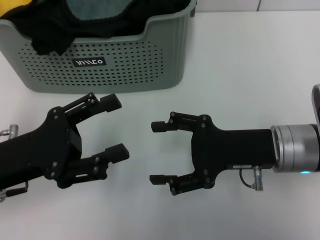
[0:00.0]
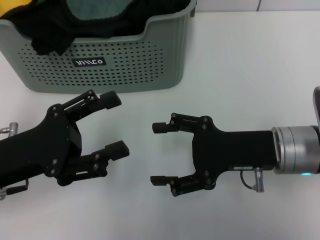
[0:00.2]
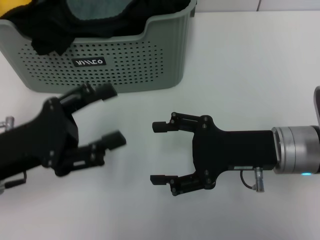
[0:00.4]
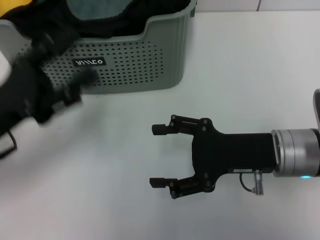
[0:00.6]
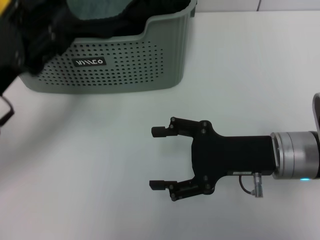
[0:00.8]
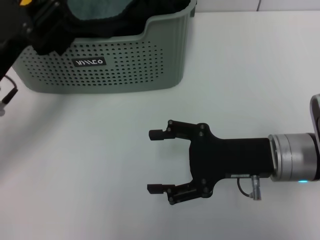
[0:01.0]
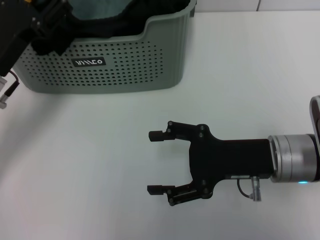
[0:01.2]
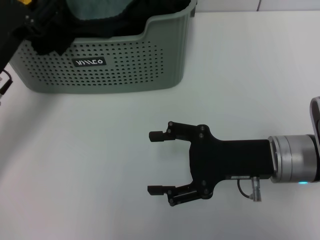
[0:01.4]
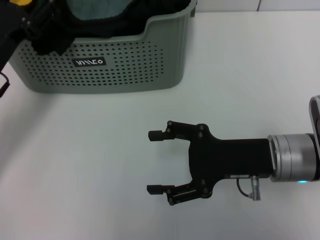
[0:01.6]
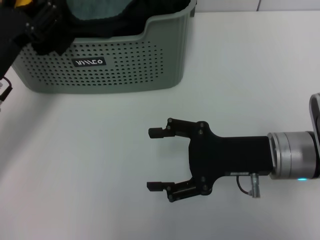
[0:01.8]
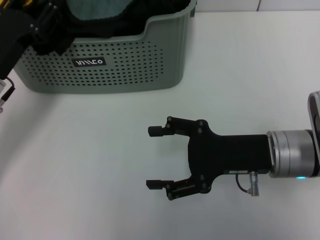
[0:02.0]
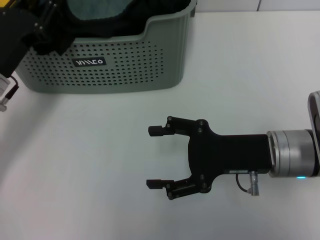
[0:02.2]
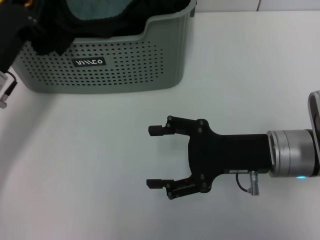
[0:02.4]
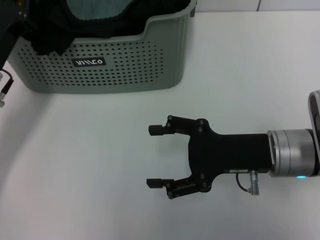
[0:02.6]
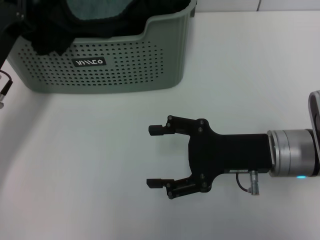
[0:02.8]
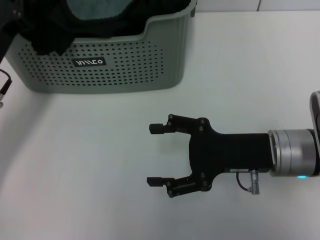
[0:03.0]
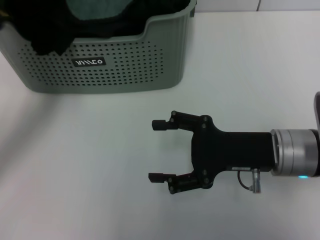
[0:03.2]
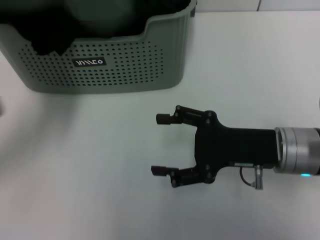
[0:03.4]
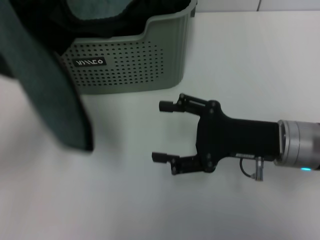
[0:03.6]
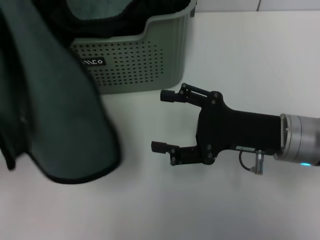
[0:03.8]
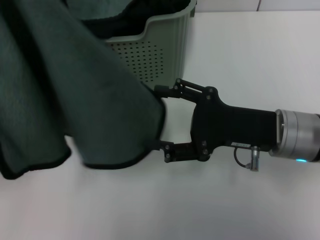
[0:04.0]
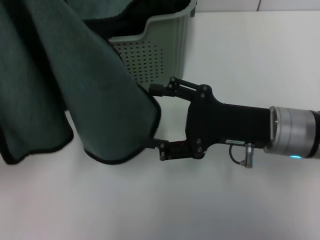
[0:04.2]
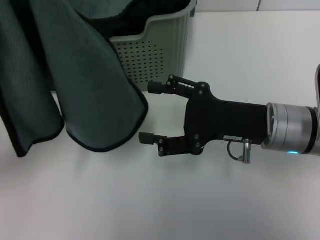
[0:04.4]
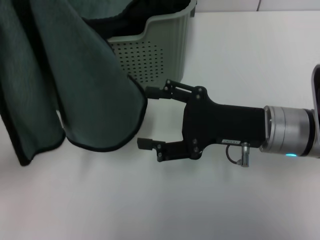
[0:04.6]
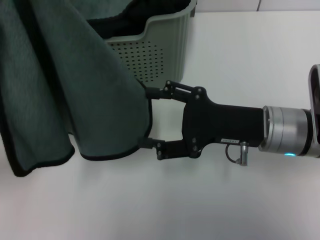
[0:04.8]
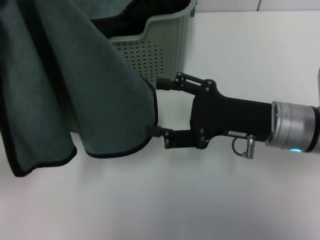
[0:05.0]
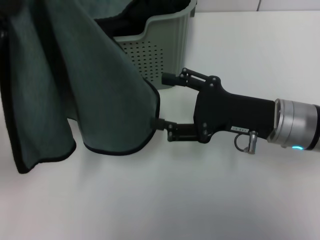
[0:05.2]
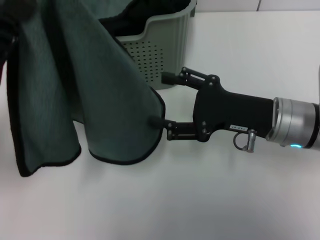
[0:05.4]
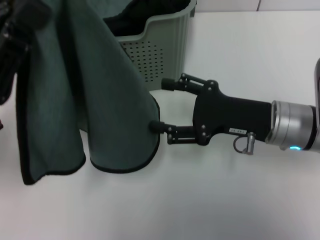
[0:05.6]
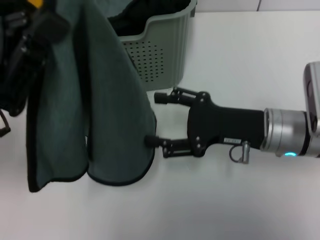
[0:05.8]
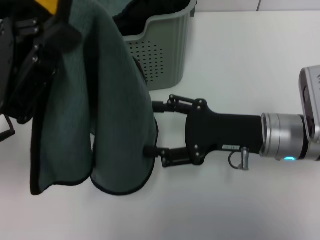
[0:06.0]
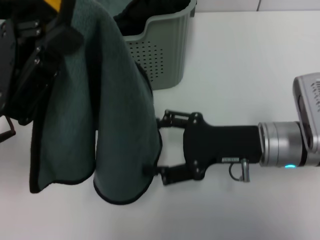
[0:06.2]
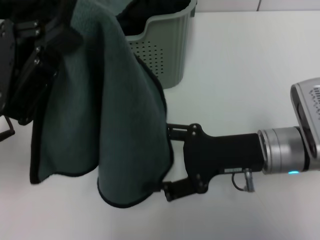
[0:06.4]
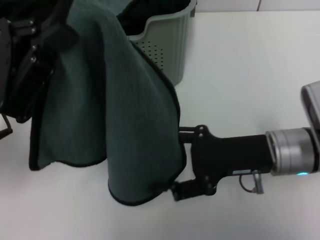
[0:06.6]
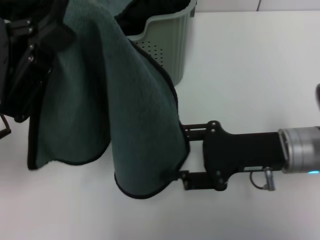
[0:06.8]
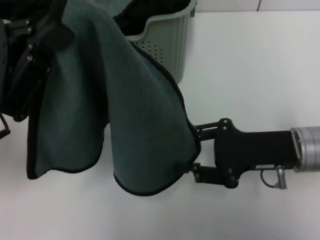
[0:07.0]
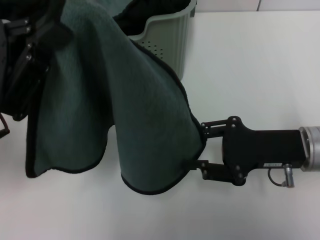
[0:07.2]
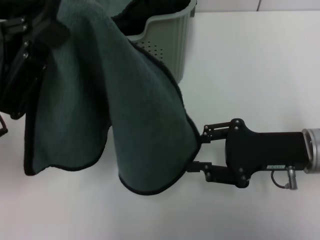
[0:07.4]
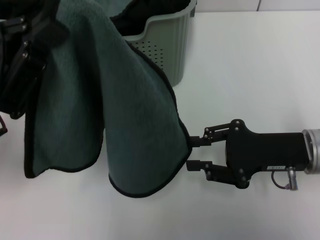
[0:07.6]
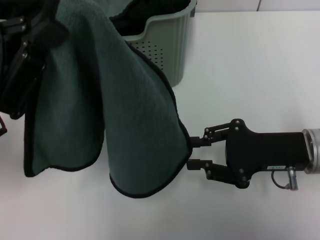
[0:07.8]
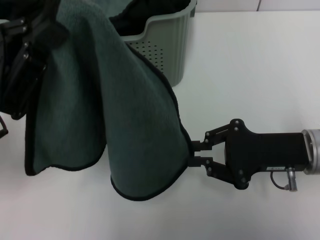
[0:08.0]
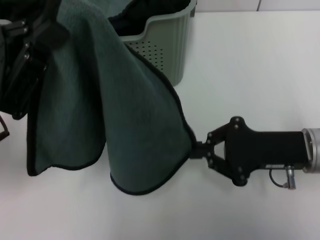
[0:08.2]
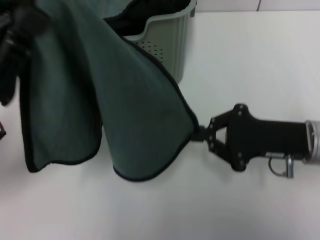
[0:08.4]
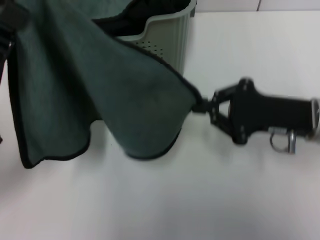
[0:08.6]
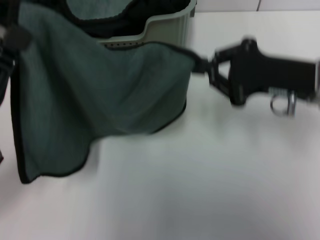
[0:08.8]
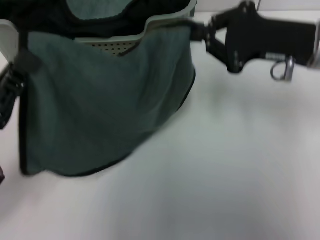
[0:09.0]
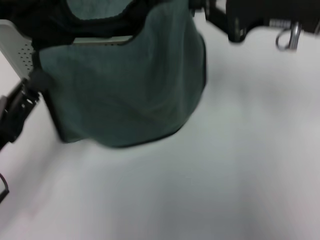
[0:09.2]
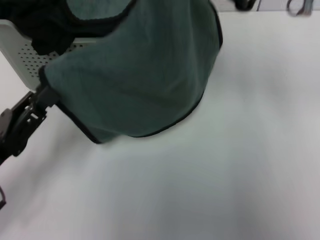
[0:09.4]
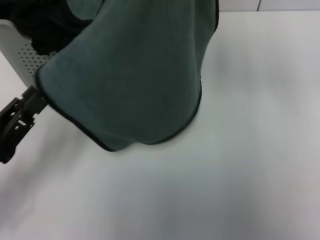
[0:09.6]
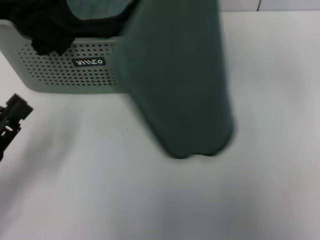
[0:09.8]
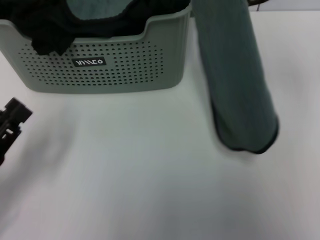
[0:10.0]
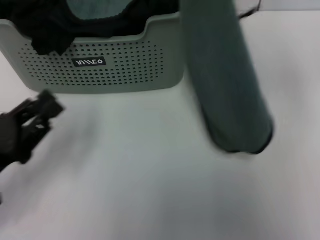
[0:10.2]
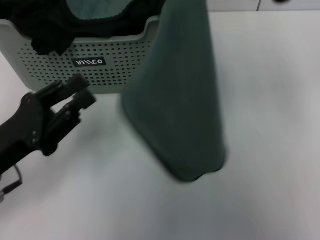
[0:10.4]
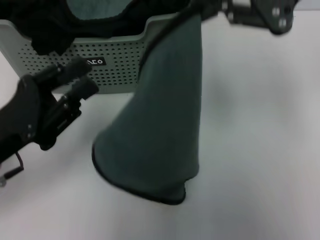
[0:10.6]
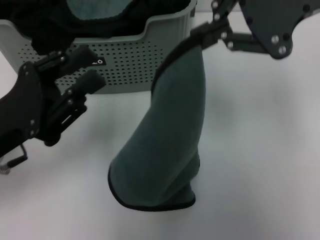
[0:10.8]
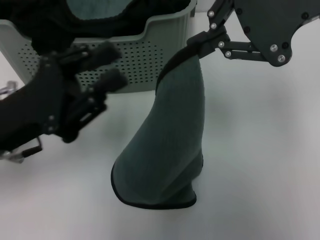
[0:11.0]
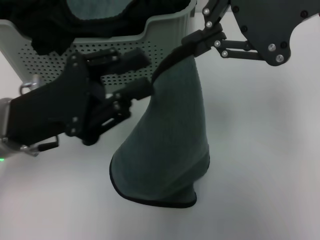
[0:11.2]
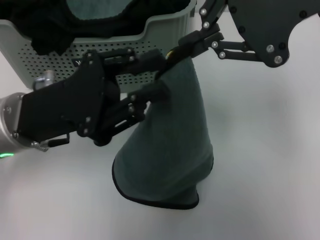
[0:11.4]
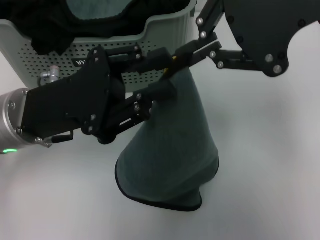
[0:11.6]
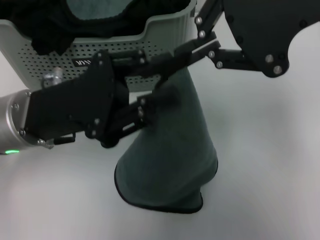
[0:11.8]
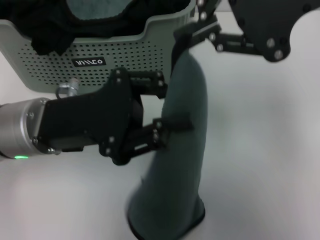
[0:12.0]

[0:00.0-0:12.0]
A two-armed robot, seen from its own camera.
Task of the whole recording: pick up the towel from the storage box and lay it flat on the table.
Step, 0:00.0 to 0:02.8: Pick up a towel with the left gripper.
Step, 0:03.0 to 0:08.4: Spread the towel flat with the left gripper.
0:00.0 to 0:01.6: The left gripper heads forward, covering about 10 cm.
0:01.6 to 0:03.0: The left gripper closes up.
0:03.0 to 0:04.4: The left gripper shifts about 10 cm backward and upward.
0:06.0 to 0:07.6: The right gripper moves to the right, approximately 5 cm, and closes up.
0:07.6 to 0:09.0: The right gripper is displaced upward and forward by about 10 cm, and closes up. The left gripper moves downward, approximately 5 cm.
0:09.0 to 0:10.4: The right gripper shifts some 15 cm upward.
0:10.4 to 0:12.0: The right gripper ends up some 5 cm from where it was. Meanwhile the left gripper shifts some 10 cm to the right, upward and forward.

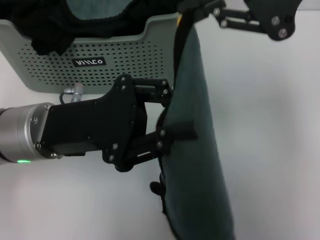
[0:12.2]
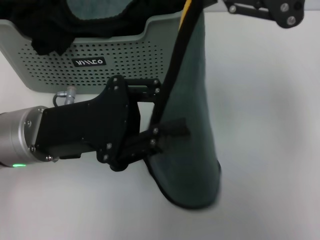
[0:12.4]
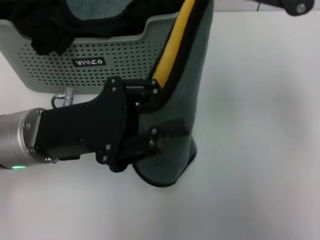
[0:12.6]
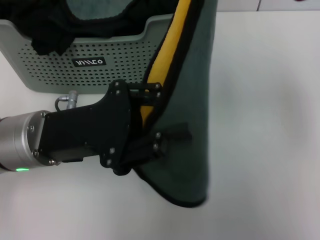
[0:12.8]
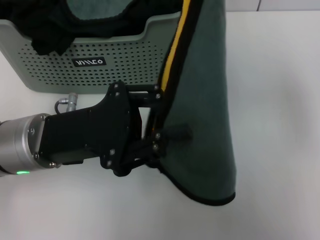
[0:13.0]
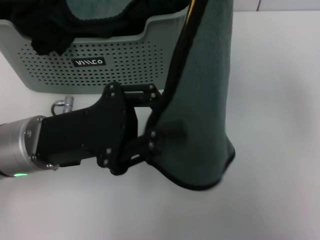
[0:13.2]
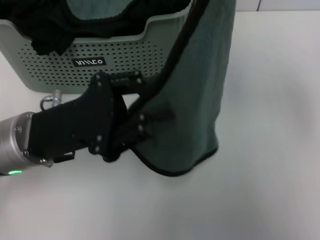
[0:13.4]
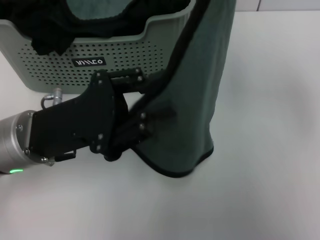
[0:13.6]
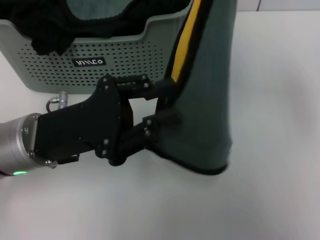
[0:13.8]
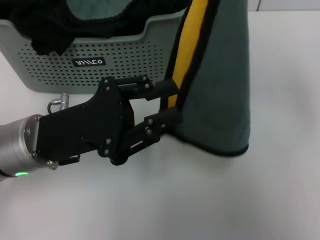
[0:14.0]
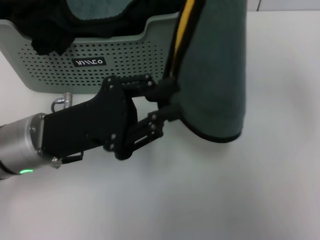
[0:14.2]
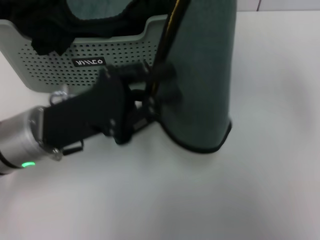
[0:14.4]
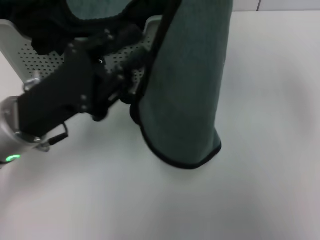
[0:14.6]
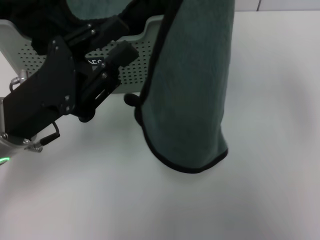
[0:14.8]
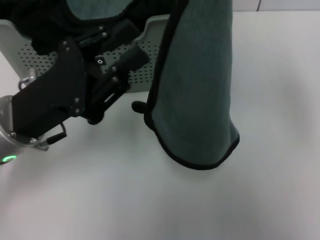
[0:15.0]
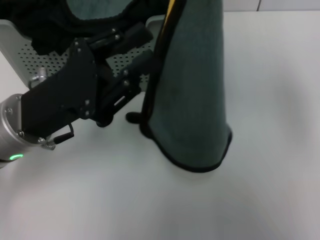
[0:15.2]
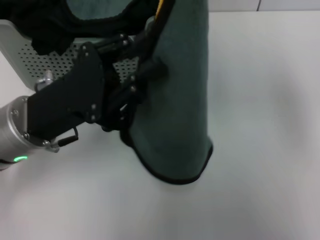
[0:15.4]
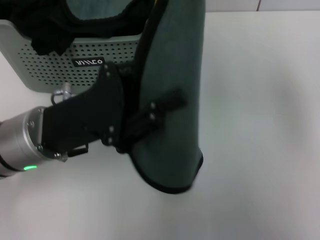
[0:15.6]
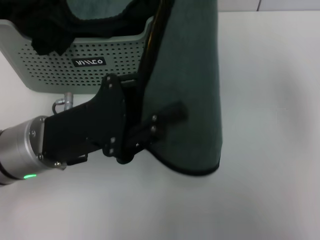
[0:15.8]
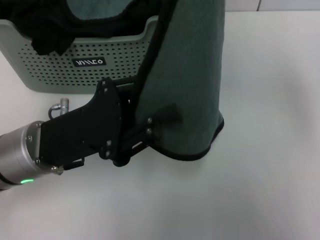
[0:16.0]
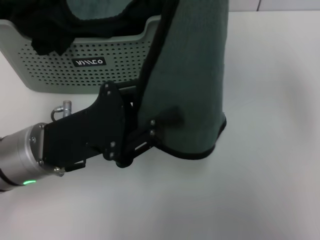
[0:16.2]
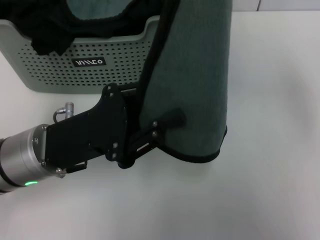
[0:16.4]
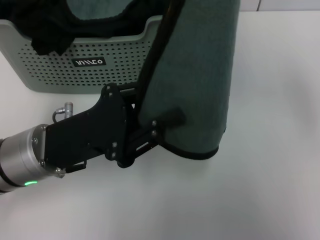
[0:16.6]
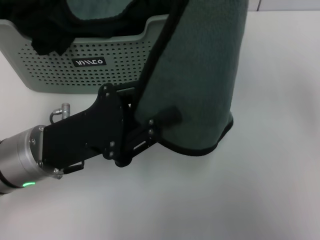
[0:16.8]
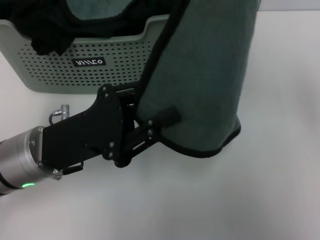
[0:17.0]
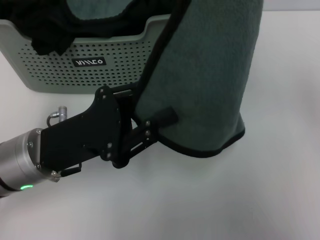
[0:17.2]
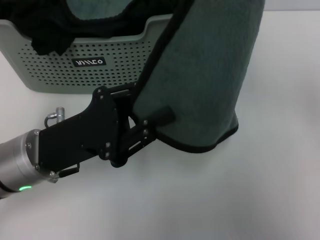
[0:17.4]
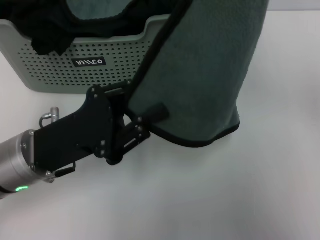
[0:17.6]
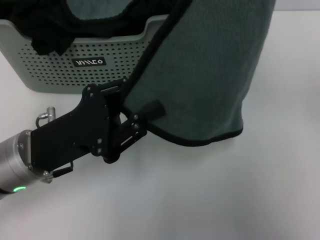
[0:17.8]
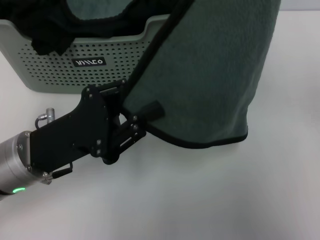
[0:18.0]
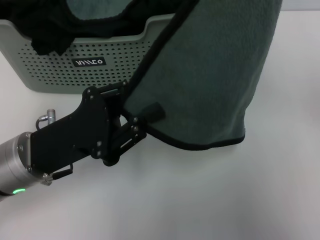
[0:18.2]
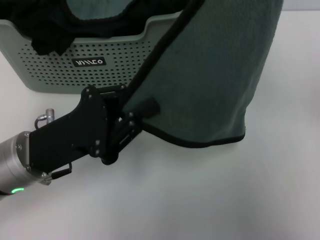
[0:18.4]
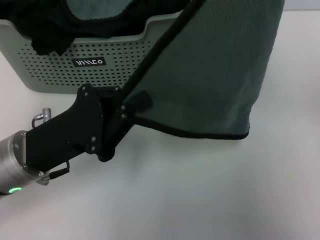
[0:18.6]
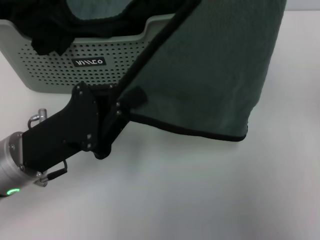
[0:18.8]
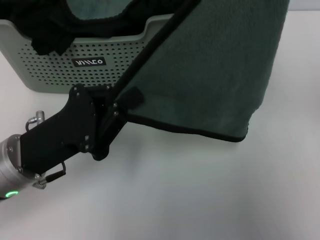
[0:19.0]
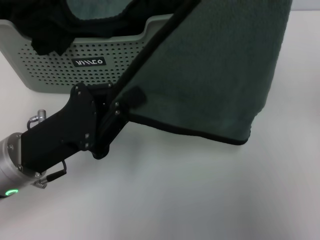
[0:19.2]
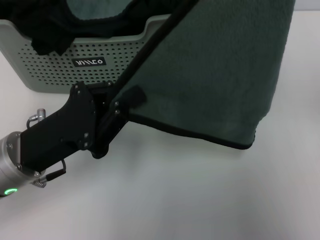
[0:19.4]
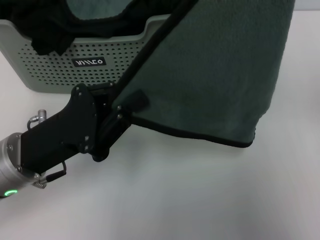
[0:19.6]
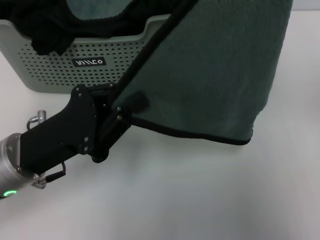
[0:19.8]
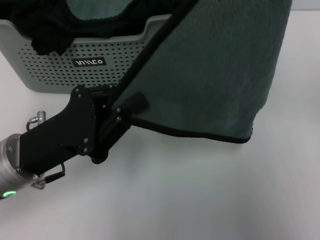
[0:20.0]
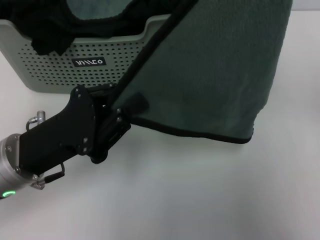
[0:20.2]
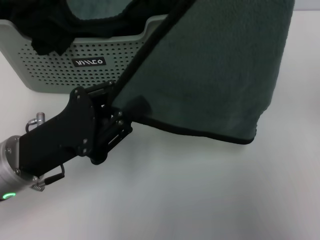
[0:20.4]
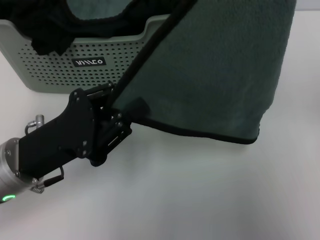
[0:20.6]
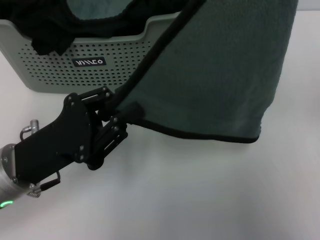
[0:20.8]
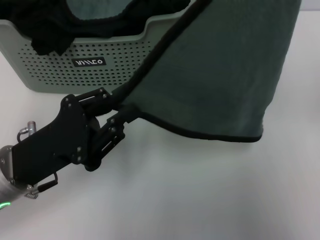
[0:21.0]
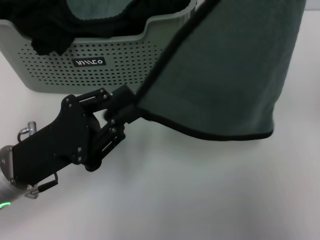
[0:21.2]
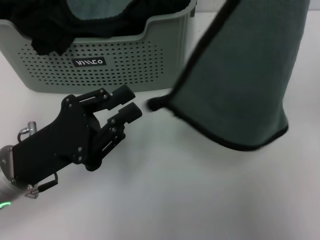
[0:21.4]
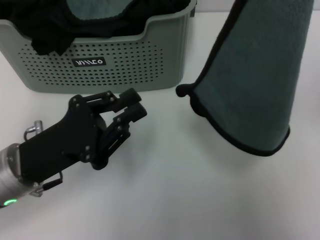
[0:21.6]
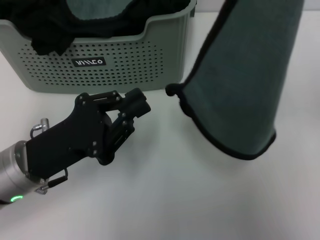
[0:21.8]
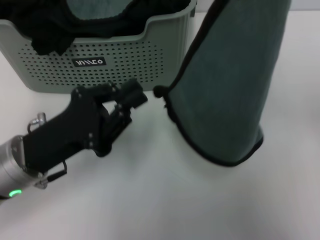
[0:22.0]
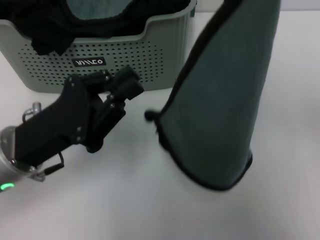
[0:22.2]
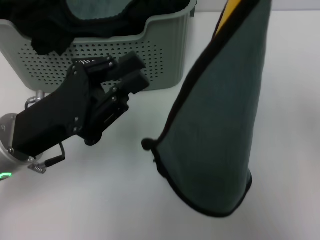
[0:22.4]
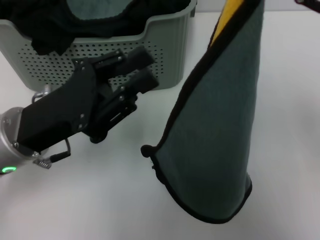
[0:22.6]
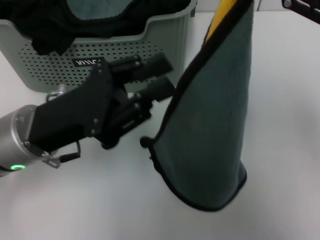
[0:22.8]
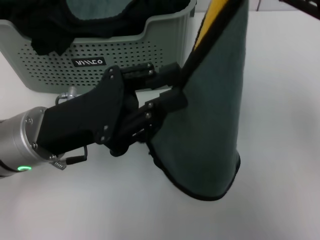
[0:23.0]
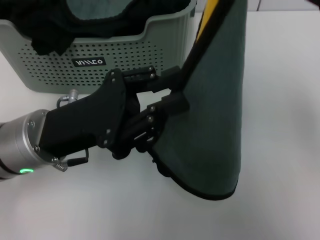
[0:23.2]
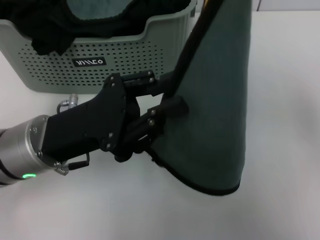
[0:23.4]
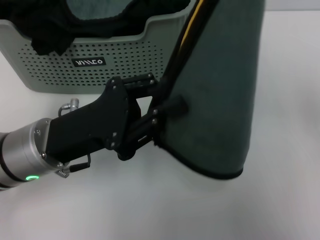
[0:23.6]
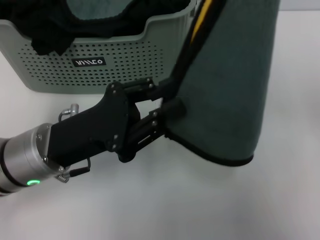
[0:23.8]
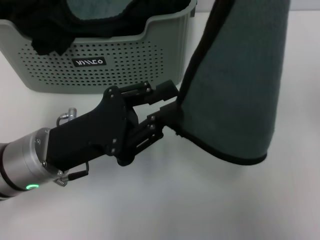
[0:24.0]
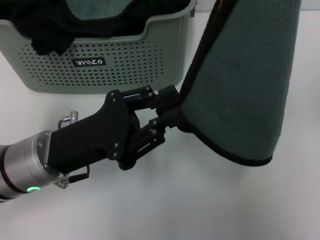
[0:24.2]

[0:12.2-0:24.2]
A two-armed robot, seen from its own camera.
Task of the whole recording: pick up the towel from the storage box and lay it flat on the table.
0:16.6 to 0:21.2: The grippers stay close to where they were, moving slightly.
0:21.2 to 0:22.6: The left gripper moves roughly 5 cm.
